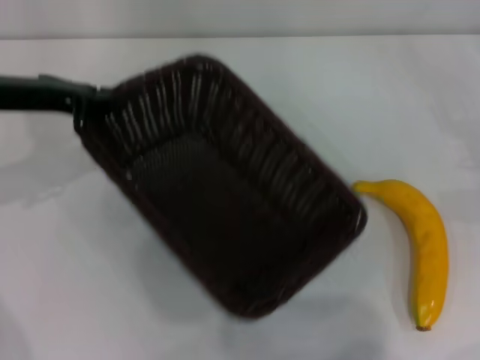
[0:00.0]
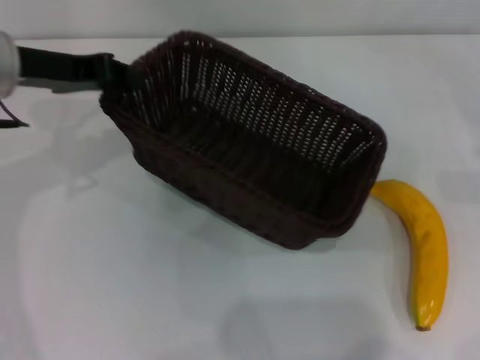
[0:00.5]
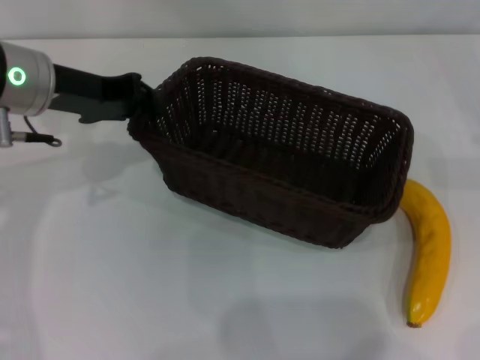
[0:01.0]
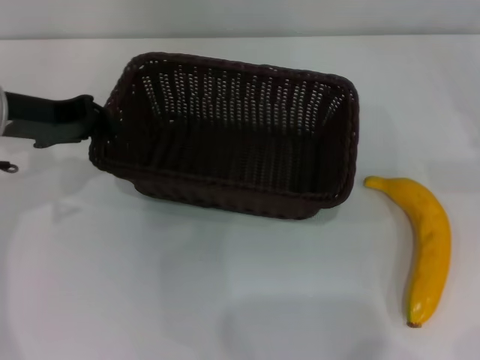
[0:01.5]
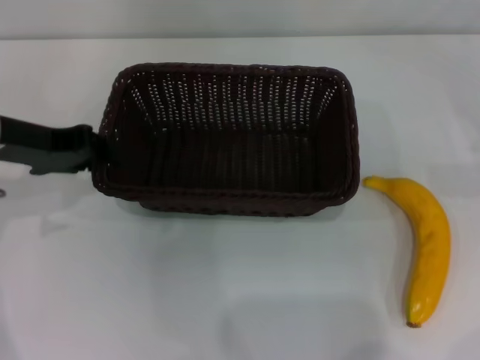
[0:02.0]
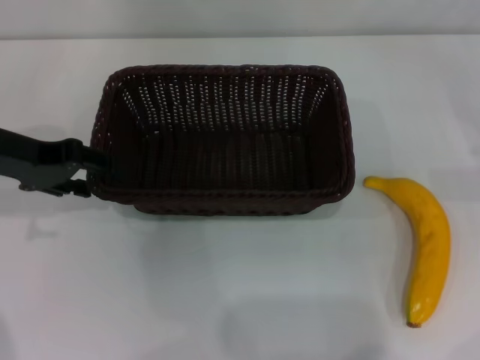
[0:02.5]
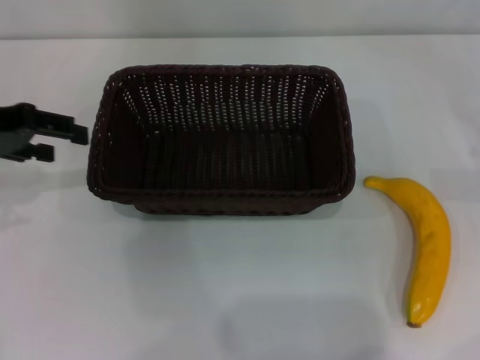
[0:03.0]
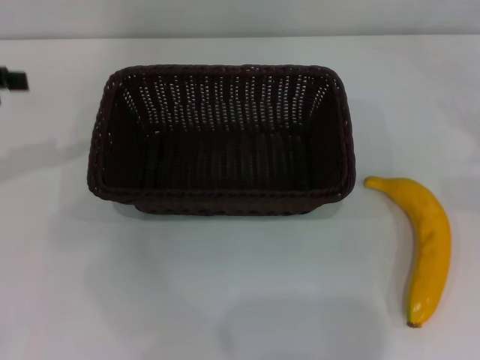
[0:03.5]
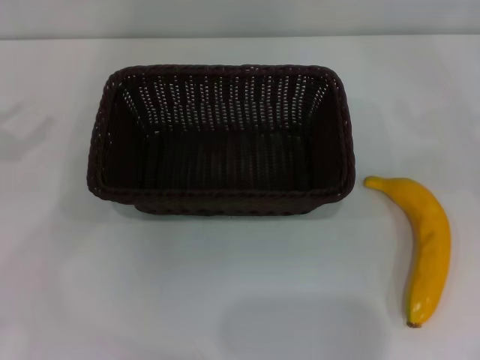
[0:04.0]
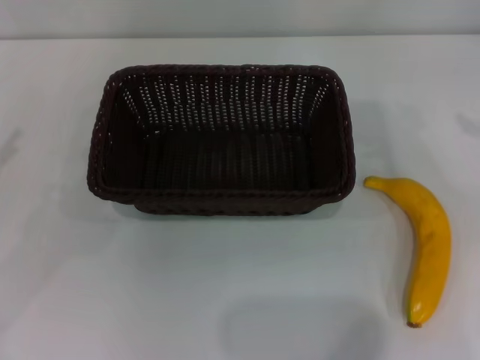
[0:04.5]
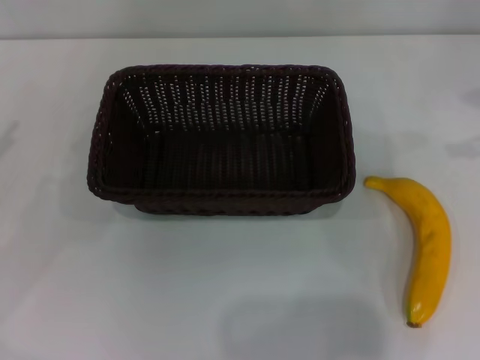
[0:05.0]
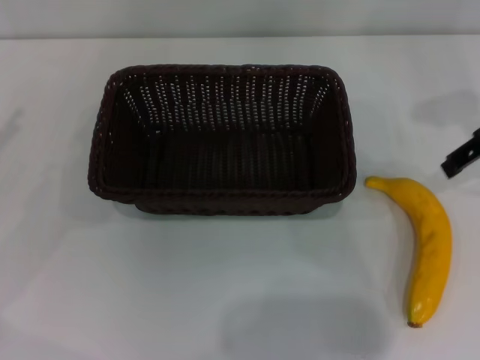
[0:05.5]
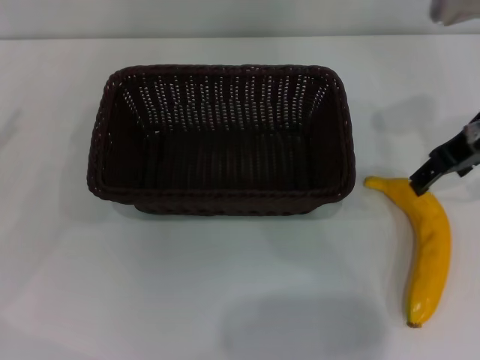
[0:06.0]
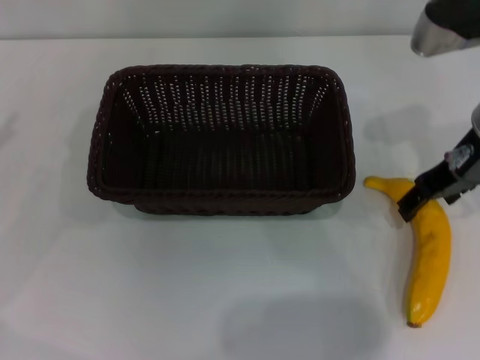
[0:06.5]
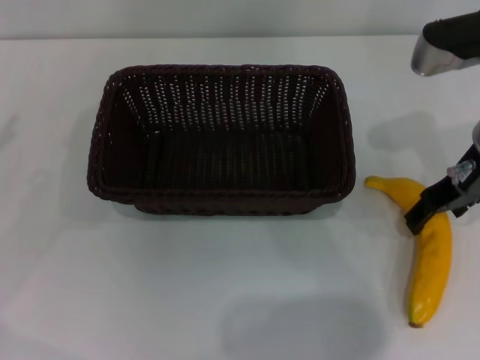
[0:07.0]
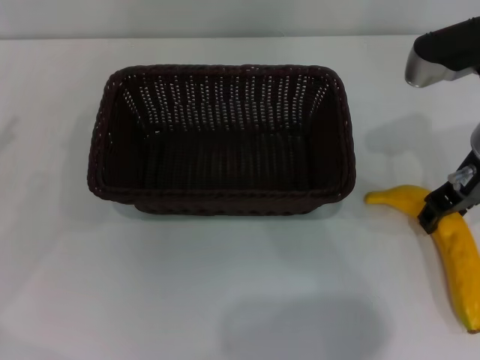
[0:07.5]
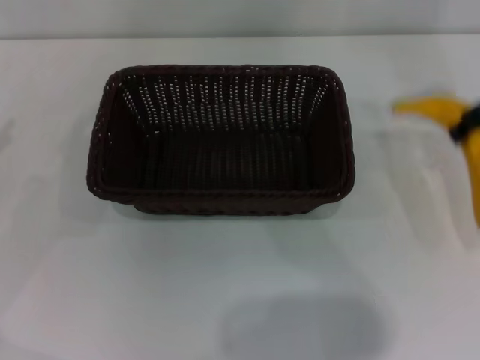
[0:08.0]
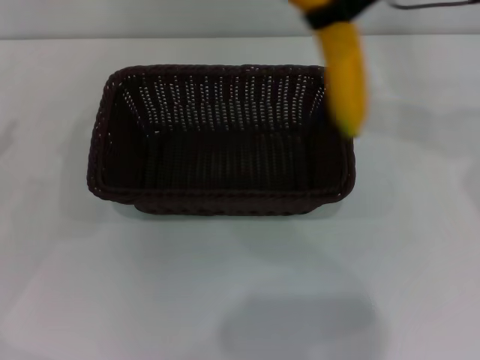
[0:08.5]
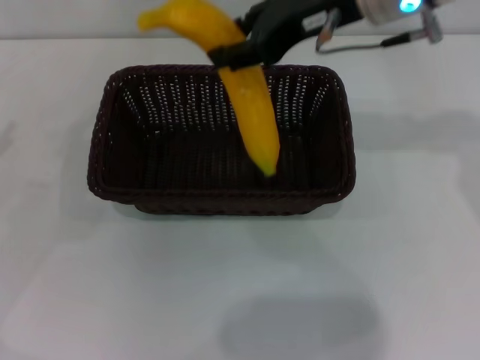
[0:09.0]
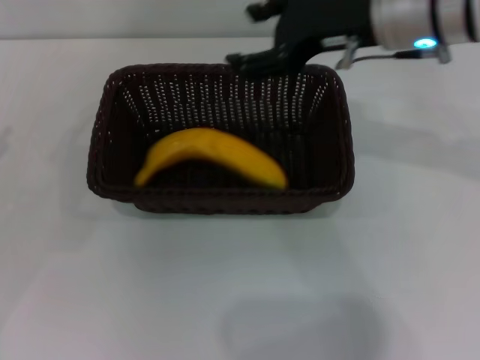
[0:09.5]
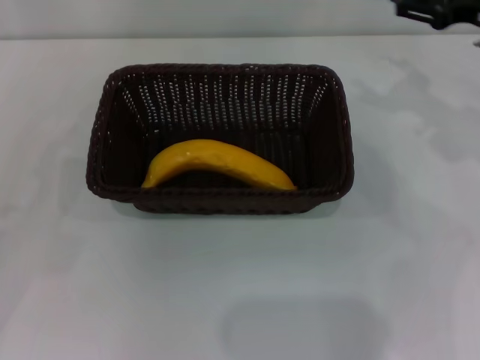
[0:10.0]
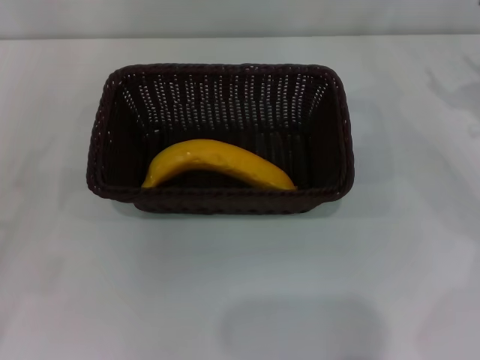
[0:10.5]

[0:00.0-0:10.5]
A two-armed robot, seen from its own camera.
Step, 0:00.0 to 0:03.0: Place the dark basket in the center of view with the left gripper.
Step, 0:03.5 to 0:07.5: Pick up the banana with the right gripper.
Step, 0:08.0 to 0:10.5: Place the banana into the dark basket with the right gripper.
0:02.0 to 0:04.0: The left gripper moves to the left, some 15 cm, and opens; the right gripper moves upward, some 10 cm.
0:04.0 to 0:06.5: The right gripper travels to the left by some 25 cm.
0:06.5 to 0:08.5: The right gripper goes roughly 15 cm upward and to the left, and closes its fingers.
0:08.5 to 0:10.5: The right gripper travels to the right and downward by approximately 25 cm, and opens; the left gripper changes place by approximately 5 cm.
